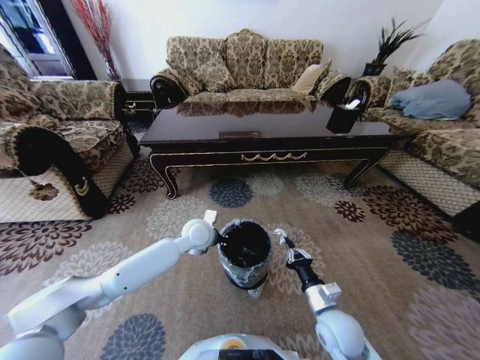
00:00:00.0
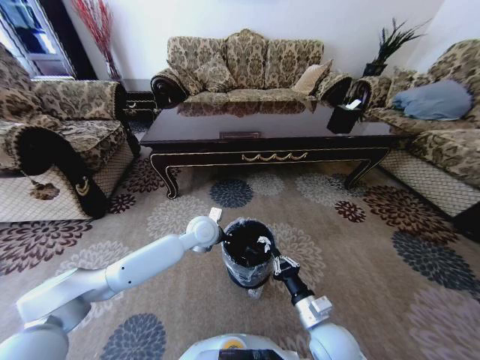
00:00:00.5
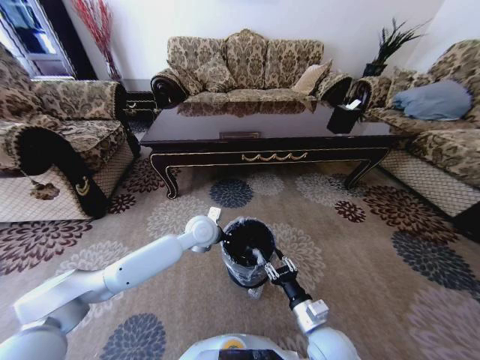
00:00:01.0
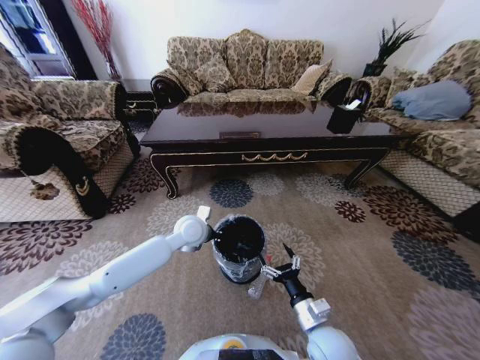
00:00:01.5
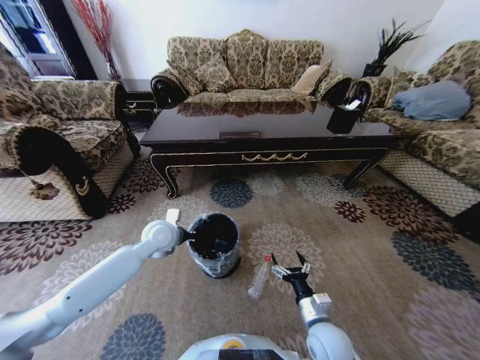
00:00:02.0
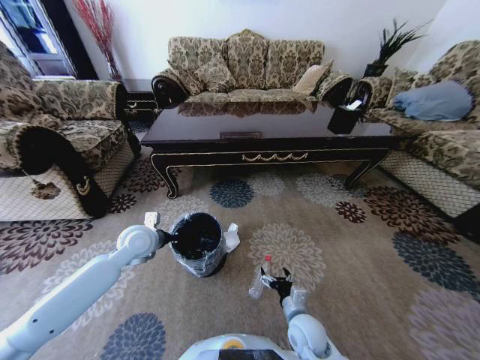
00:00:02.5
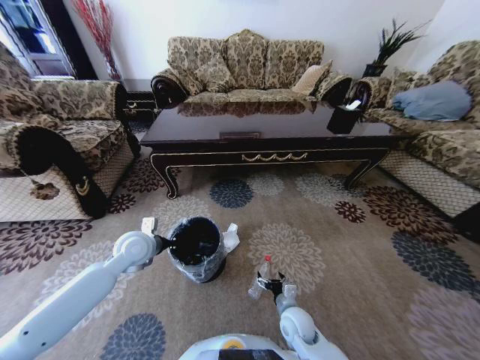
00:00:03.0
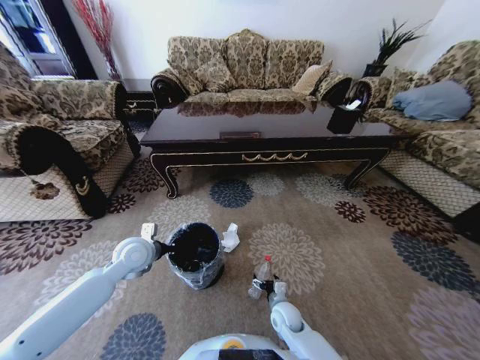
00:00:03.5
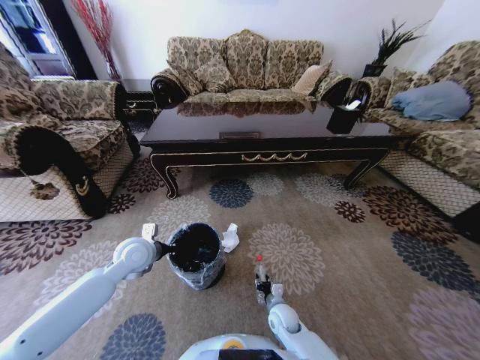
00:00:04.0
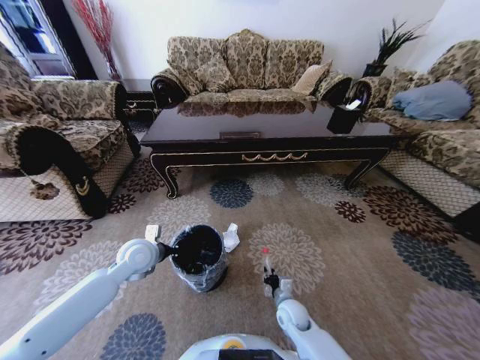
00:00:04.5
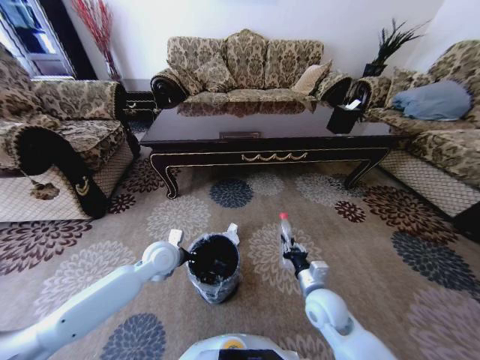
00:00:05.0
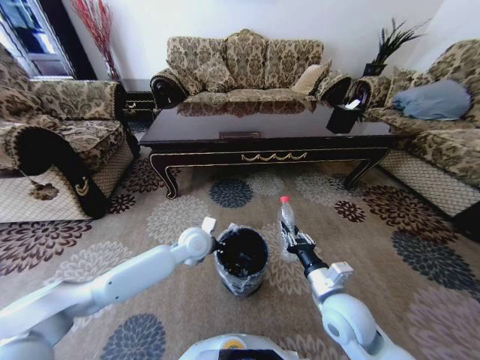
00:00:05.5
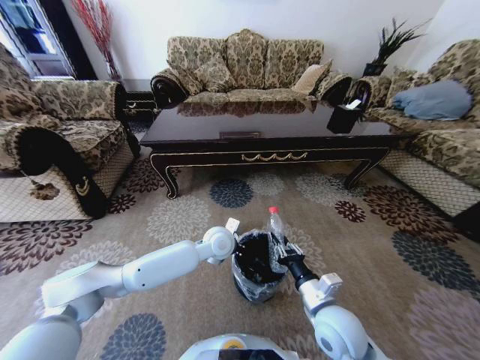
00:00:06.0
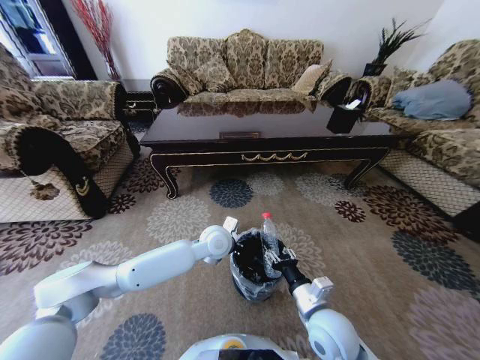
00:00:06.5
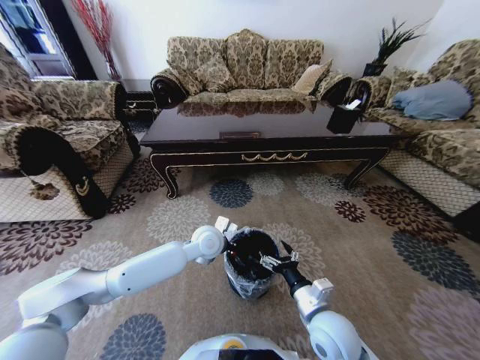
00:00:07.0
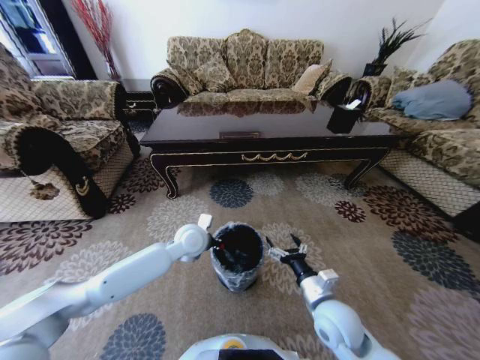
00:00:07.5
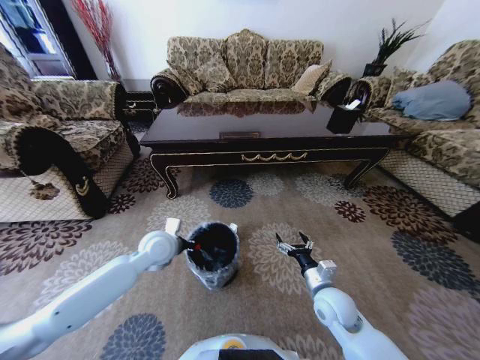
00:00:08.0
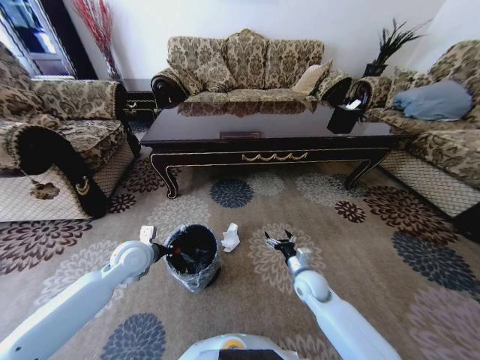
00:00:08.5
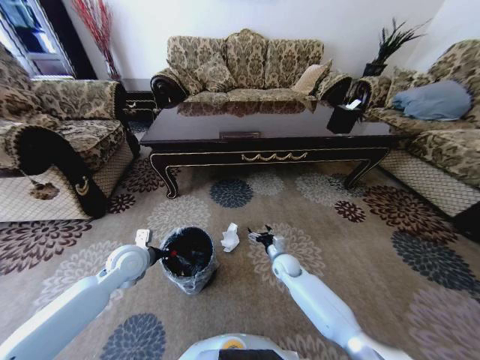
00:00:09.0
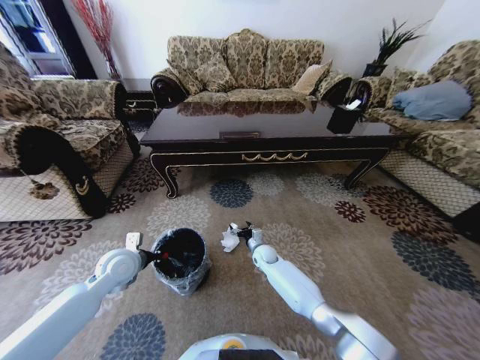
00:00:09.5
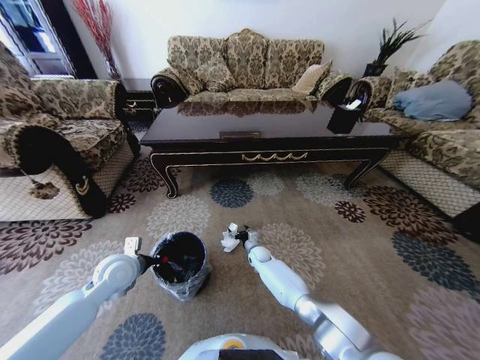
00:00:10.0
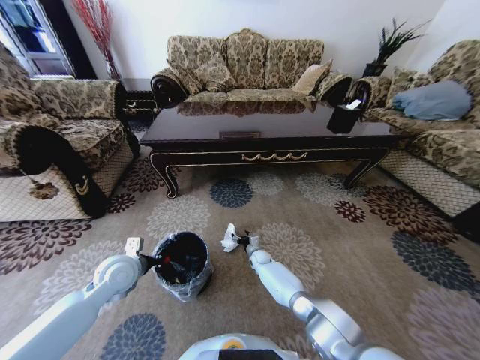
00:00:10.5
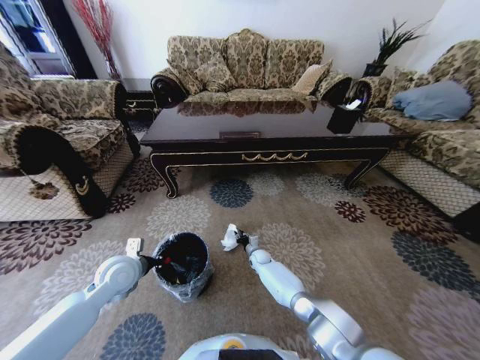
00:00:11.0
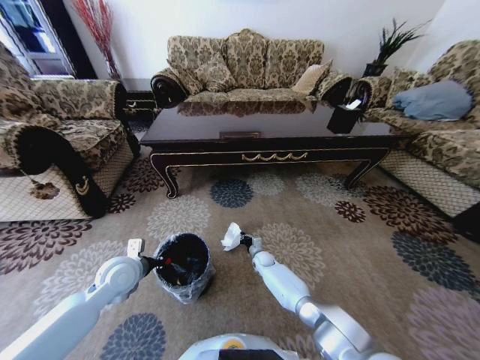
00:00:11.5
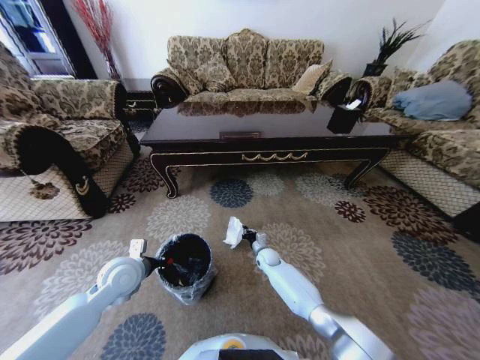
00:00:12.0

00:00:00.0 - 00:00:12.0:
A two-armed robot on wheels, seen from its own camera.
Task of the whole recording: Move to the front of the table and pick up the trash from the floor, then place it into the trash bin.
00:00:00.0 - 00:00:02.0: The right gripper opens, while the left gripper moves to the left, approximately 10 cm.
00:00:02.0 - 00:00:04.0: The left gripper travels to the left and backward by approximately 10 cm, while the right gripper heads downward, forward and to the left, covering some 15 cm, and closes its fingers.
00:00:04.0 - 00:00:06.0: The right gripper goes about 25 cm upward, while the left gripper goes about 25 cm to the right.
00:00:06.0 - 00:00:08.0: The left gripper is displaced to the left by about 15 cm. The right gripper is displaced forward and downward by about 10 cm, and opens up.
00:00:08.0 - 00:00:10.0: The left gripper shifts some 10 cm to the left and backward; the right gripper shifts roughly 30 cm forward, downward and to the left.
00:00:10.0 - 00:00:12.0: The right gripper closes.

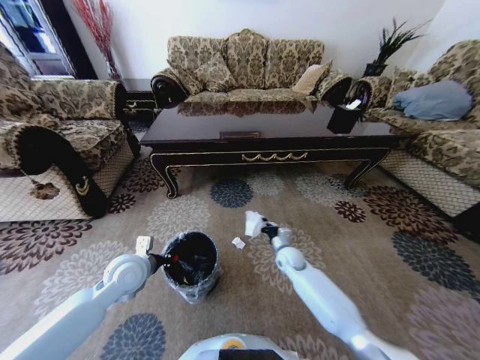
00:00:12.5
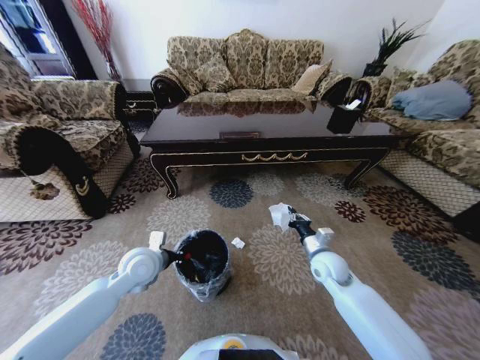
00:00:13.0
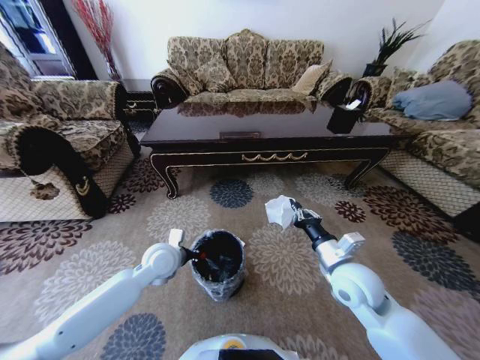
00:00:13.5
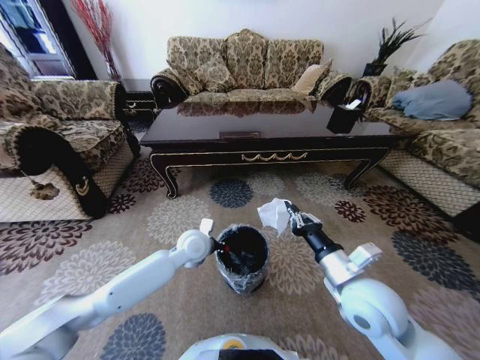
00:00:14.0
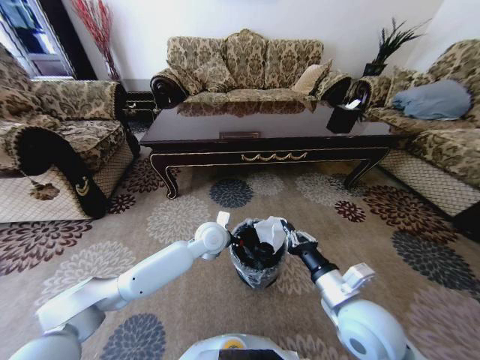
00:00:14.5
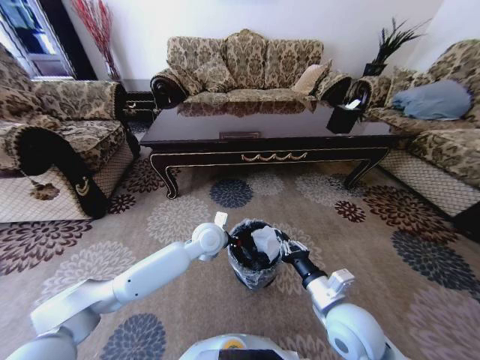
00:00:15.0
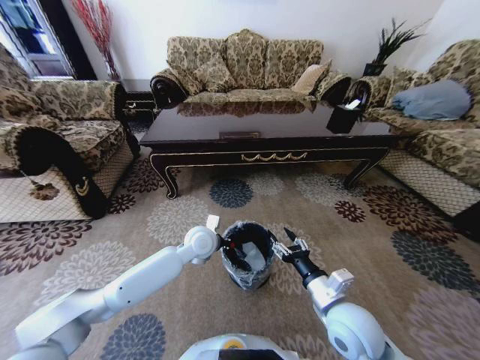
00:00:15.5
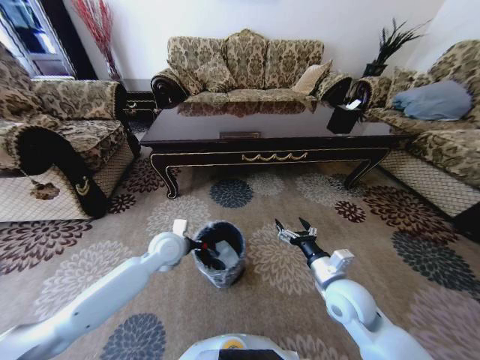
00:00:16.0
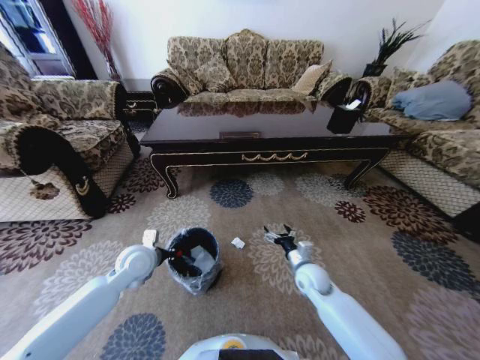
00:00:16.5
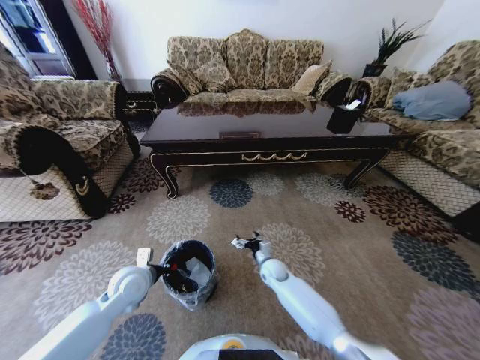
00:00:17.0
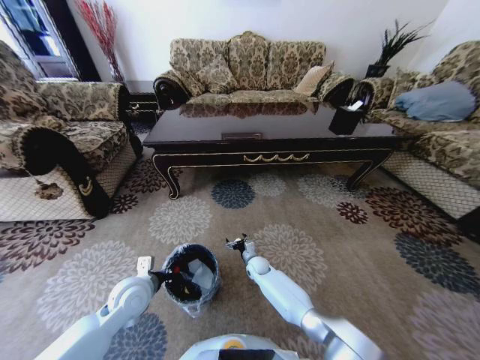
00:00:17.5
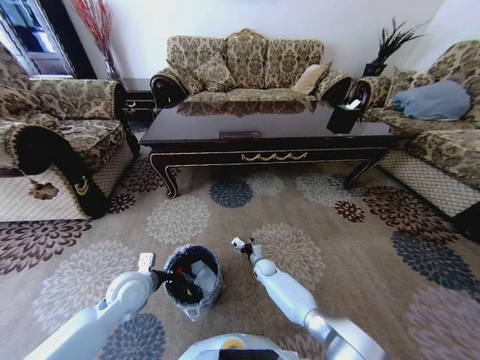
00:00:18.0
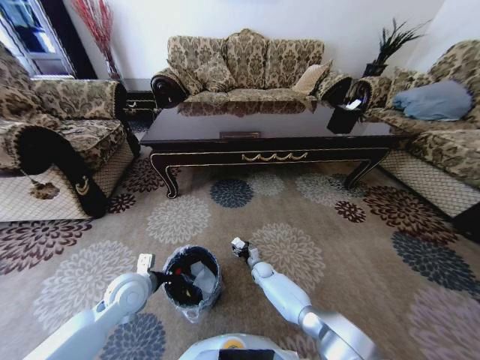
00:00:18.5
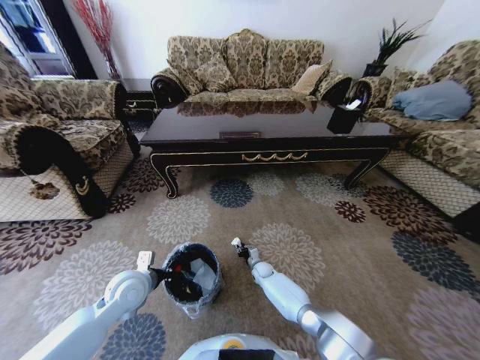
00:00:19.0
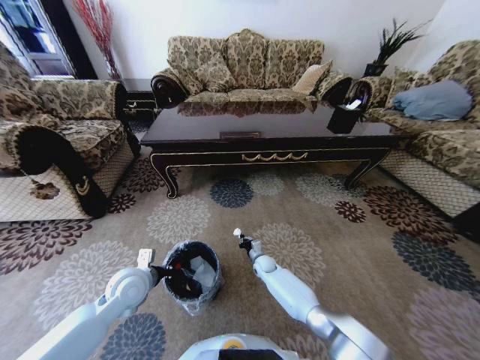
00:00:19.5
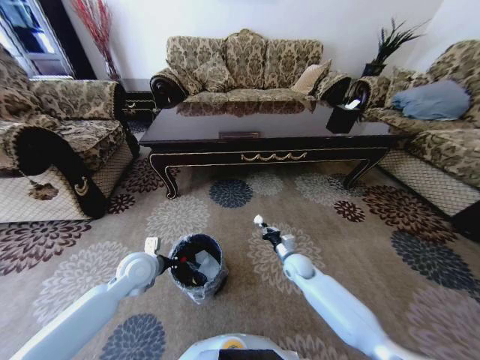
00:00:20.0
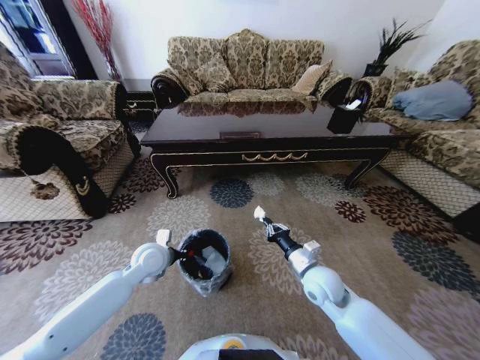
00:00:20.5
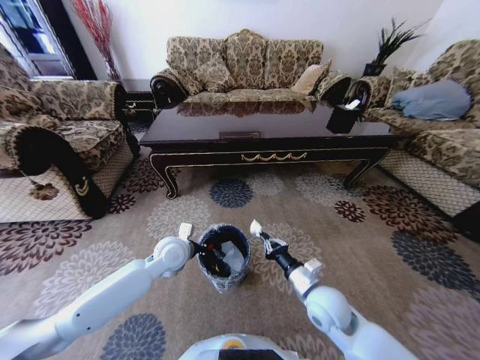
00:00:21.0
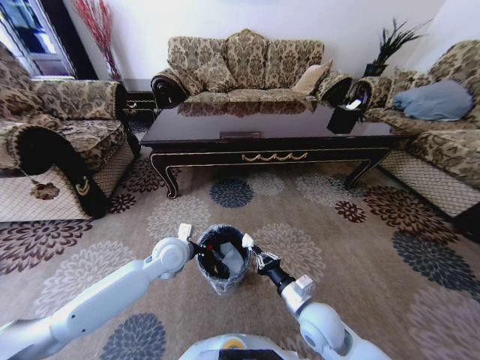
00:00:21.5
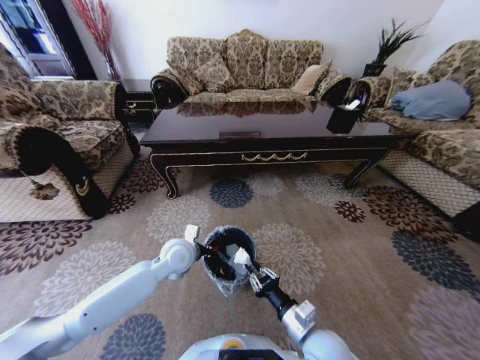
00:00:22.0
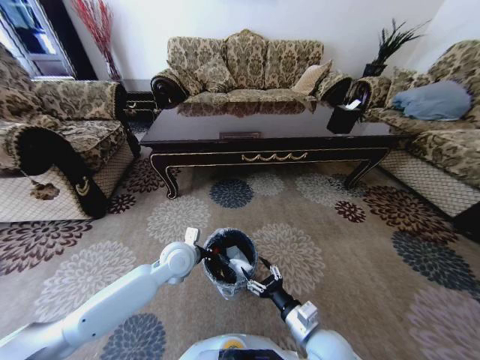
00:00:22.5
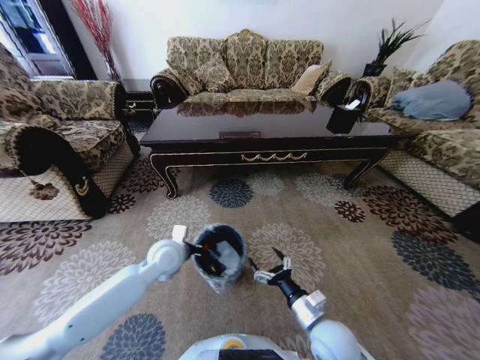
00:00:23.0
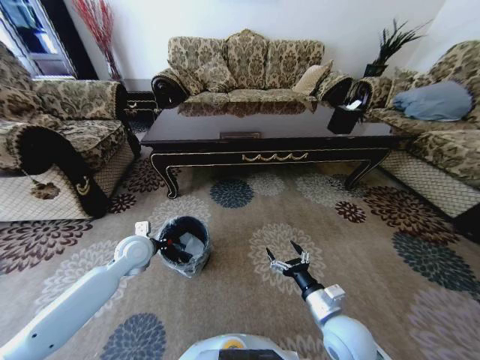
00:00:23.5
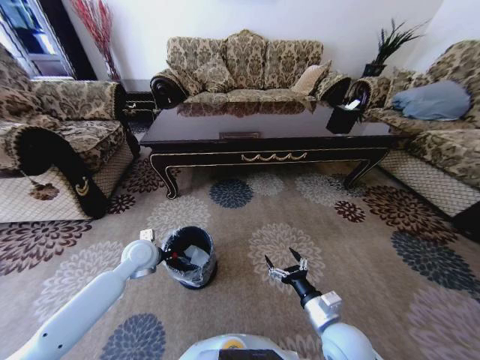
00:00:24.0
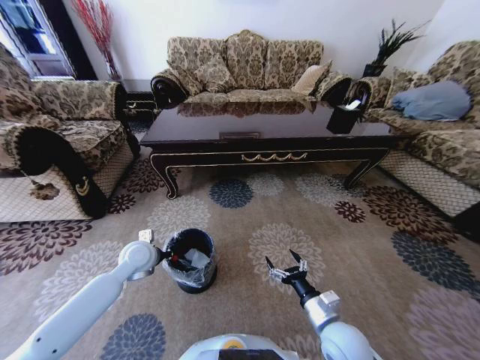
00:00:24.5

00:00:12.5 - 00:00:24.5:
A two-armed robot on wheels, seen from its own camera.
Task of the whole recording: Move to the front of the table and pick up the trash from the floor, then place it into the trash bin.
00:00:12.5 - 00:00:14.5: The left gripper goes about 25 cm to the right and forward; the right gripper shifts approximately 30 cm backward and upward.
00:00:14.5 - 00:00:16.5: The left gripper moves to the left, approximately 20 cm, while the right gripper shifts some 20 cm downward and forward, and opens.
00:00:16.5 - 00:00:18.5: The left gripper moves backward, some 5 cm, while the right gripper travels downward, to the left and forward by some 25 cm.
00:00:18.5 - 00:00:20.5: The right gripper goes roughly 30 cm upward and backward, and closes. The left gripper heads forward, covering roughly 10 cm.
00:00:20.5 - 00:00:22.5: The right gripper travels backward by about 15 cm, and opens its fingers. Meanwhile the left gripper travels to the right by about 10 cm.
00:00:22.5 - 00:00:24.5: The left gripper heads to the left, covering roughly 10 cm.

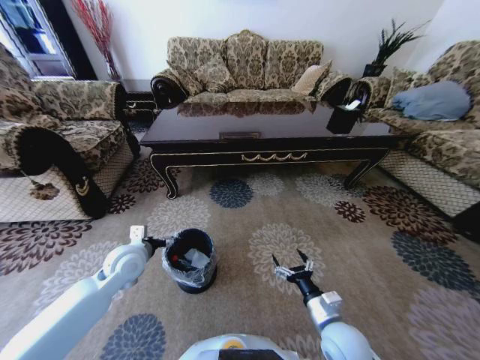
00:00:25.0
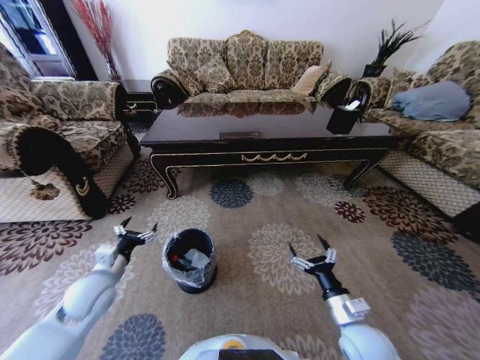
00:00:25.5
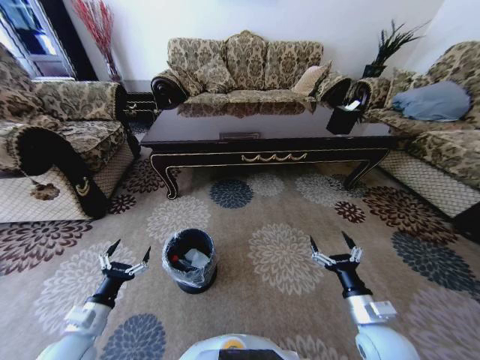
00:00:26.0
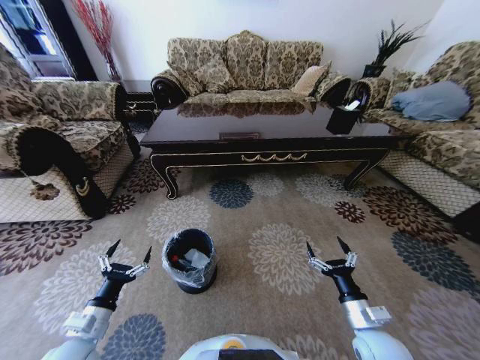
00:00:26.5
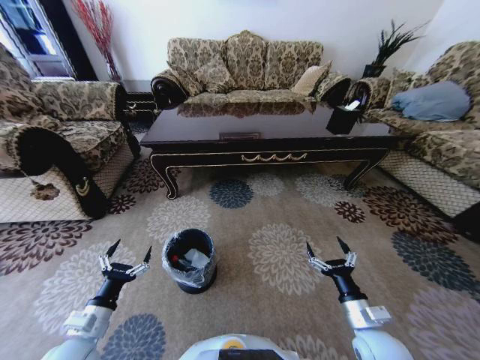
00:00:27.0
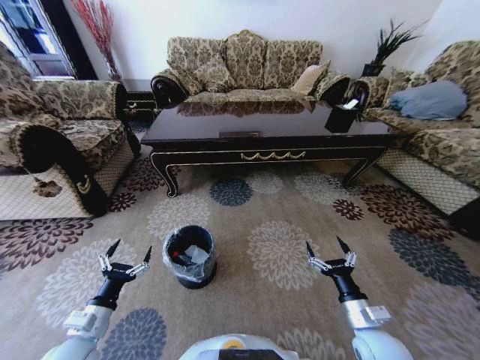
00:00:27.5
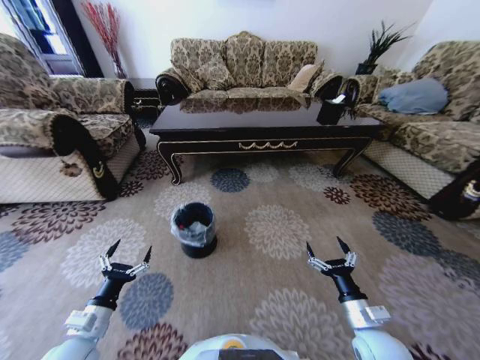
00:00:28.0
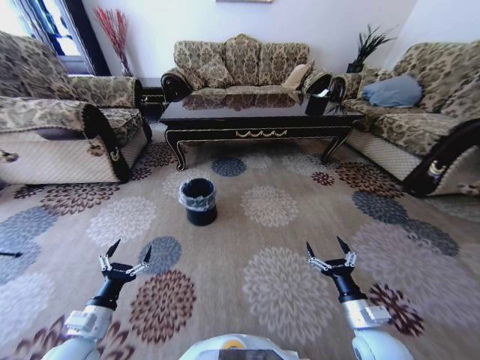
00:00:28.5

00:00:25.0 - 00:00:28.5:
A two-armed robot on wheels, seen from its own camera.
Task of the whole recording: Move to the front of the table and pick up the trash from the floor, then place it into the trash bin.
00:00:25.0 - 00:00:27.0: The left gripper shifts approximately 20 cm backward. Meanwhile the right gripper moves to the right, approximately 5 cm.
